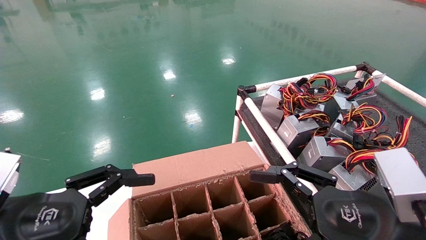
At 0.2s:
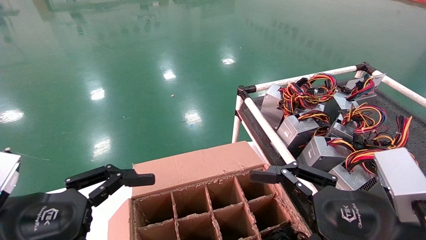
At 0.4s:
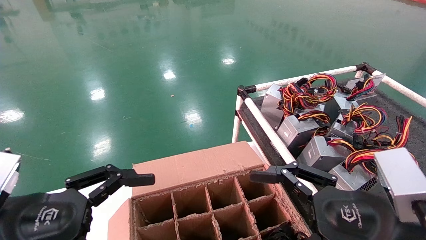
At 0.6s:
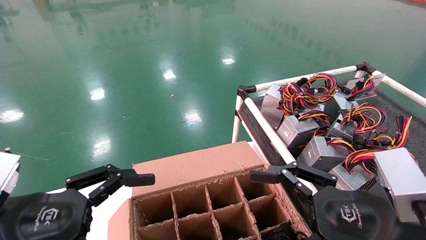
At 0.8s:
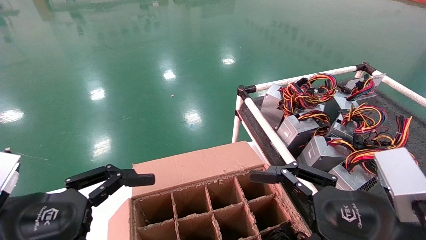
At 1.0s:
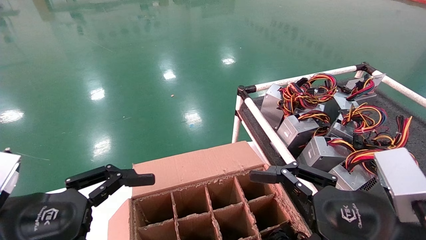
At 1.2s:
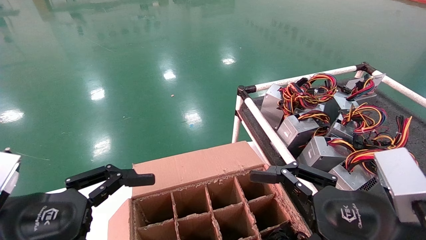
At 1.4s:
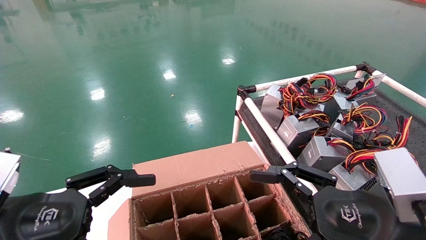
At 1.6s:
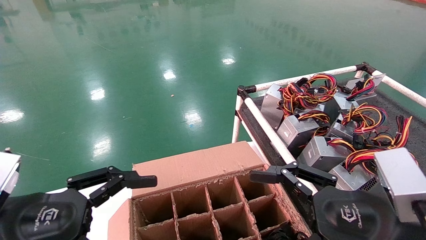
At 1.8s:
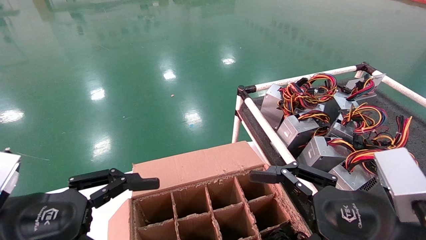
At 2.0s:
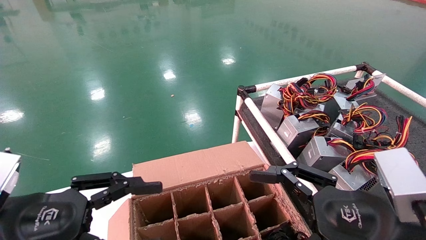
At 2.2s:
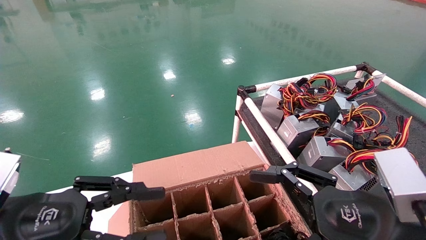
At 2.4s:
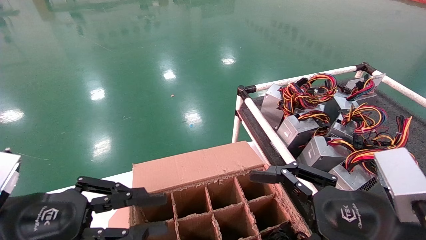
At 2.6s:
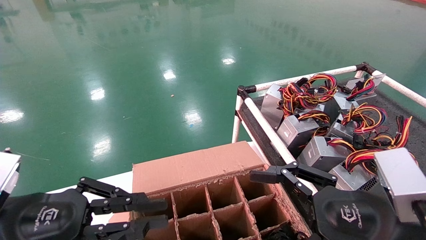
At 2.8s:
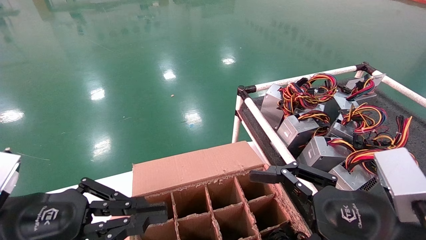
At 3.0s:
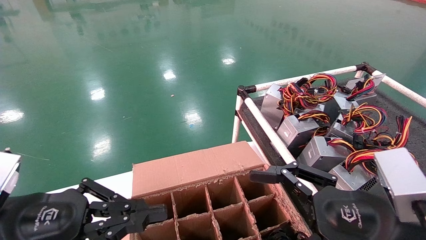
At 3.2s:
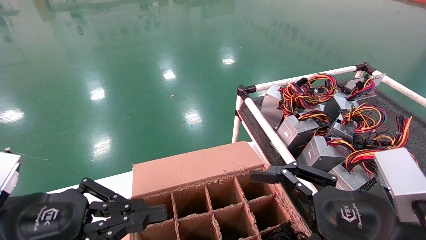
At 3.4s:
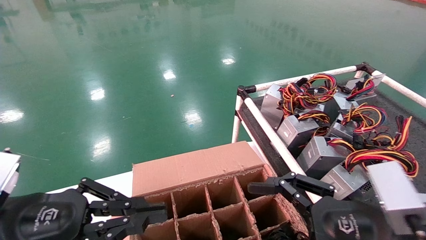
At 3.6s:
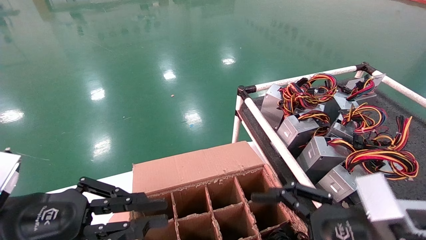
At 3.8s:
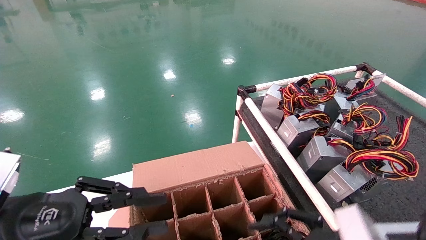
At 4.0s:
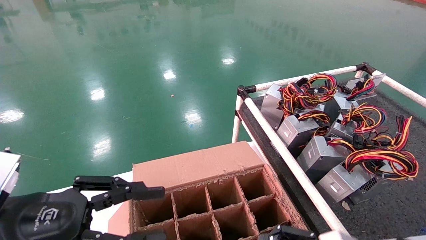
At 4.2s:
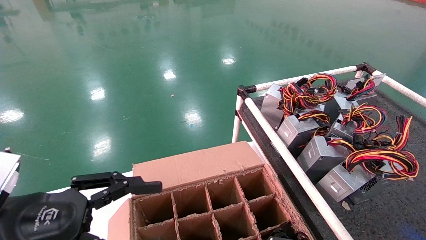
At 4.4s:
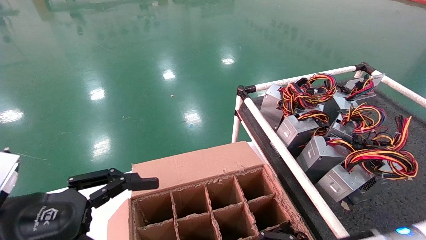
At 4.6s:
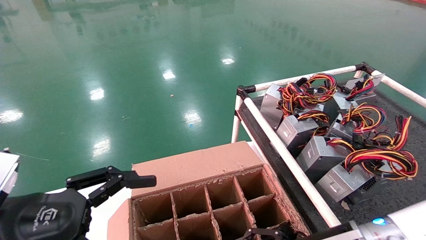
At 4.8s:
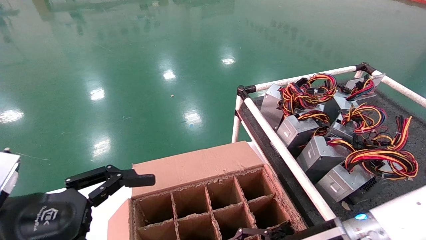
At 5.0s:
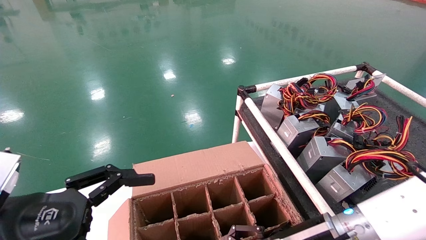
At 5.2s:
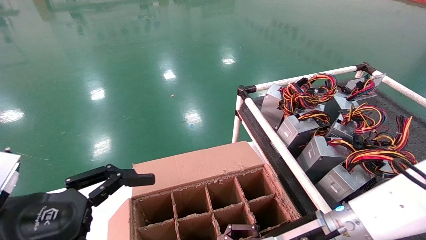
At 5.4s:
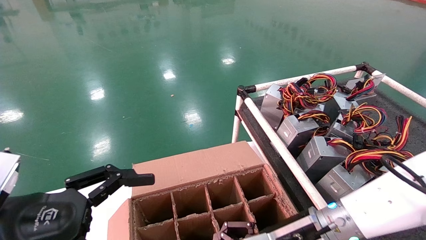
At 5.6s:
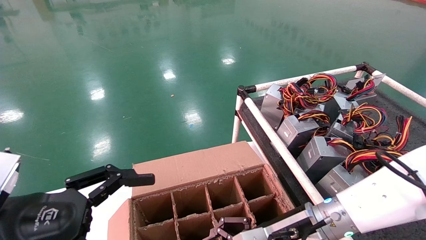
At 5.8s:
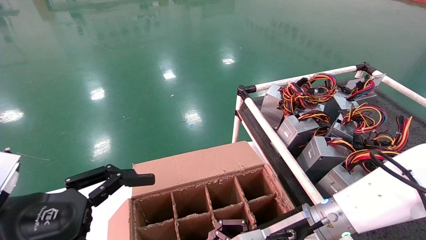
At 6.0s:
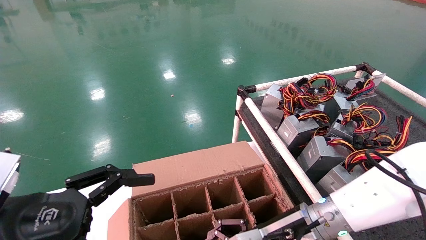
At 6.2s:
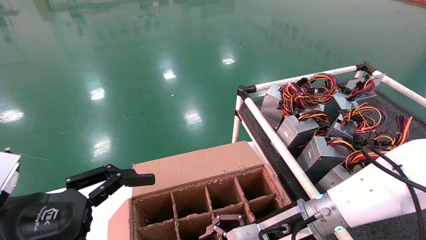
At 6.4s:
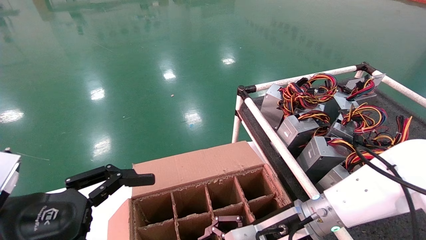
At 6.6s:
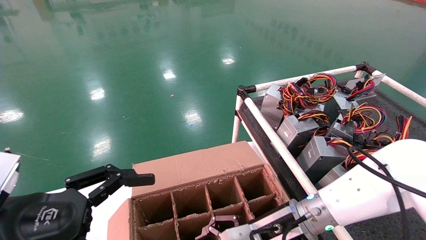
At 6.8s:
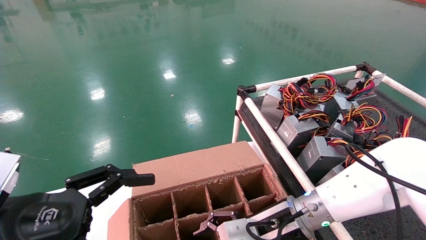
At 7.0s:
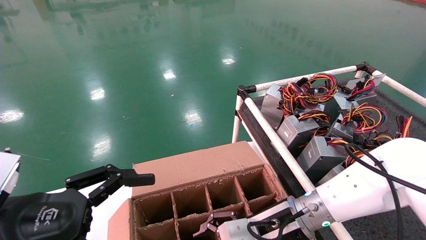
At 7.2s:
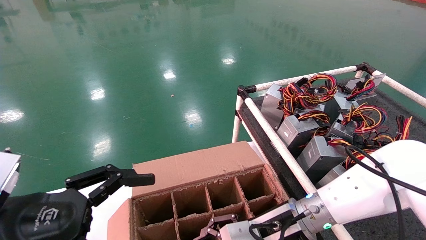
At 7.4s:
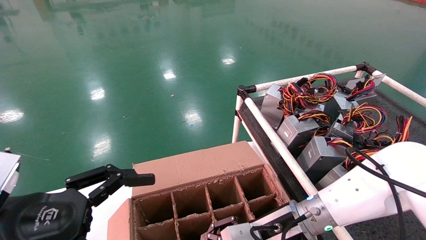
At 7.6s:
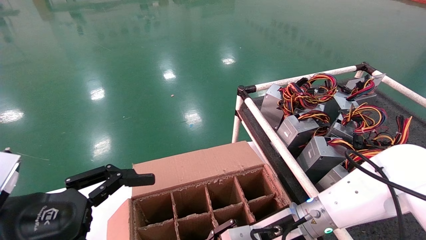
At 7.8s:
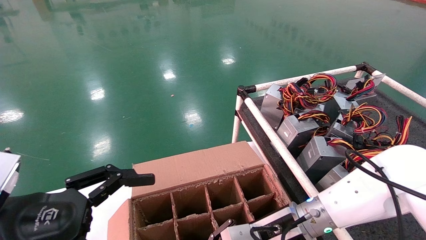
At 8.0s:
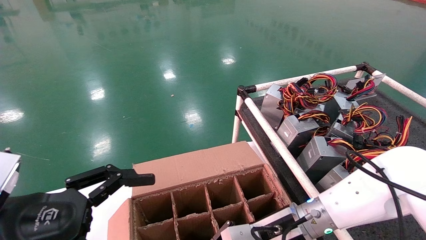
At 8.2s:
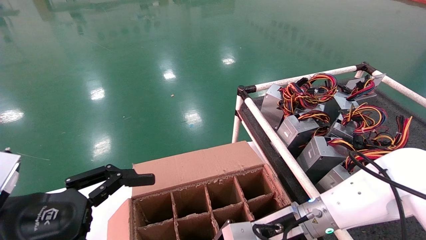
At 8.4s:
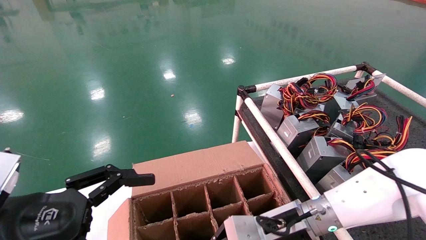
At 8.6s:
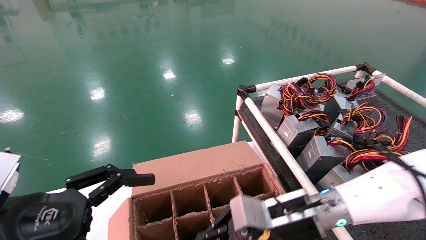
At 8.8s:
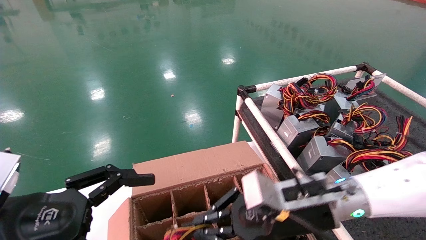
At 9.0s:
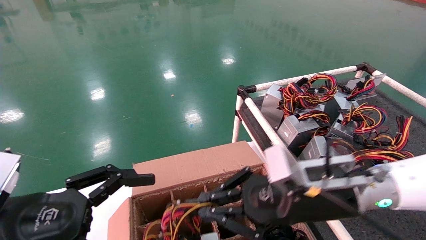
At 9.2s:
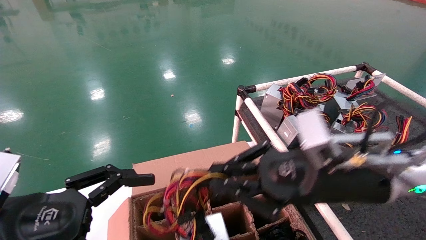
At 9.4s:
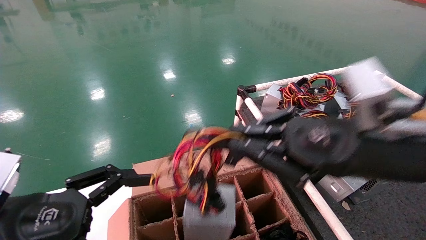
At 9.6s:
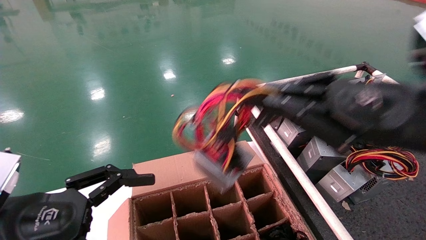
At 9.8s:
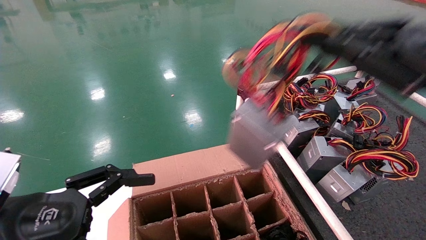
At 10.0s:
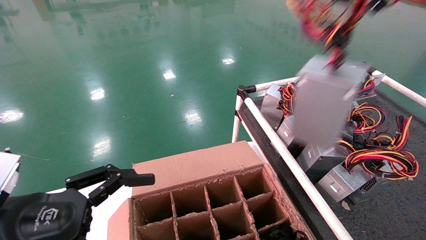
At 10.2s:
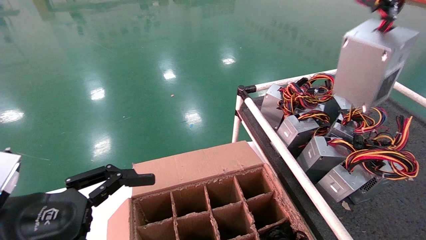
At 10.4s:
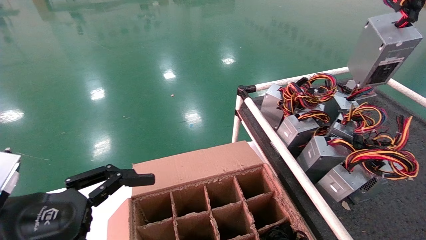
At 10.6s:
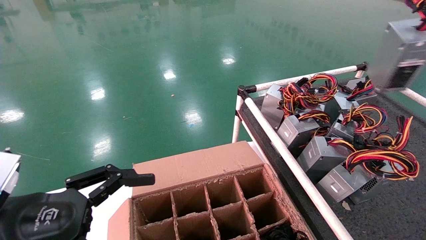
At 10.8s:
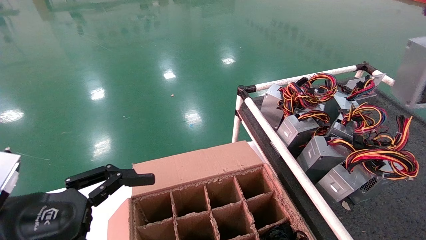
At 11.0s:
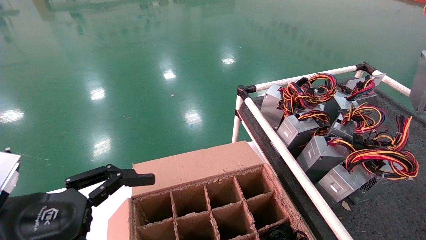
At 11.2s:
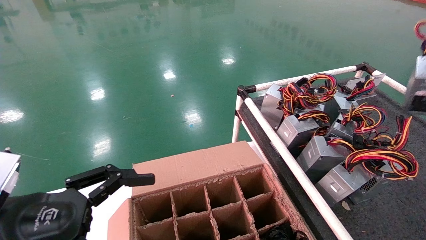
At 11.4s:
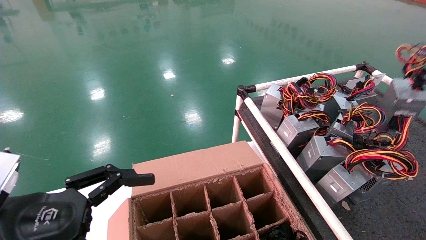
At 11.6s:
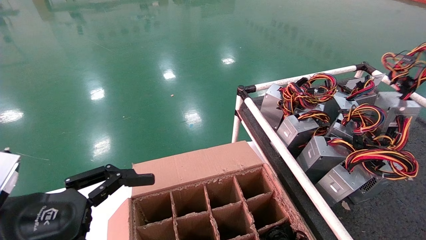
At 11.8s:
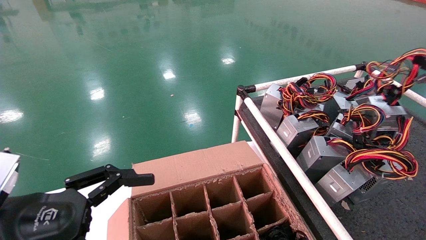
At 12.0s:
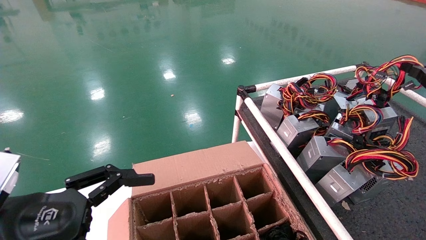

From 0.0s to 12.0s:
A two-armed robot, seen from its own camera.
Step, from 3.8s to 8.2s: Grab and lift the power supply from the large box.
From 0.0s to 1.6s: Neither gripper changes place.
From 1.6s to 3.0s: The left gripper closes.
From 3.0s to 4.4s: The right gripper moves downward and forward, some 10 cm, while the left gripper opens.
From 4.4s to 6.0s: The right gripper goes some 10 cm to the left and forward.
From 6.0s to 7.6s: The right gripper closes up.
From 7.6s to 9.0s: The right gripper travels upward and backward by about 10 cm, and closes its fingers.
From 9.0s to 10.4s: The right gripper travels to the right and upward by approximately 35 cm.
From 10.4s to 12.0s: The right gripper shifts approximately 15 cm downward and forward.

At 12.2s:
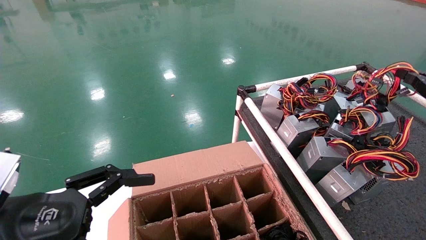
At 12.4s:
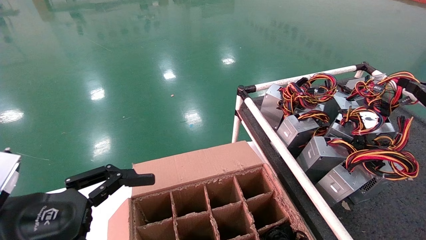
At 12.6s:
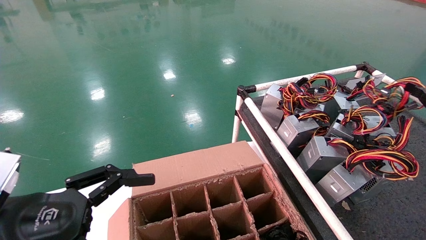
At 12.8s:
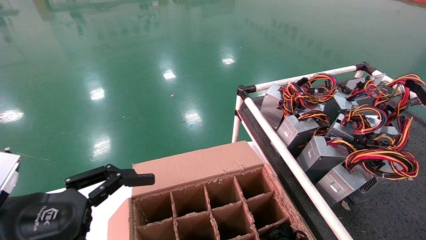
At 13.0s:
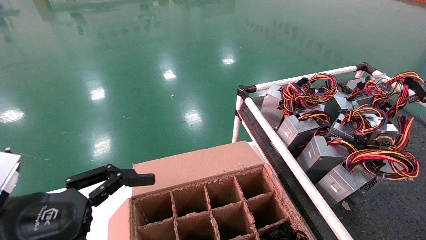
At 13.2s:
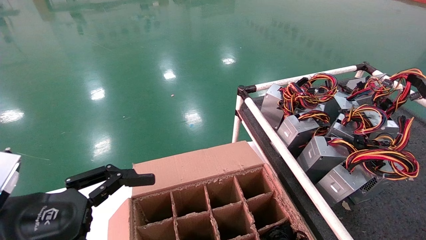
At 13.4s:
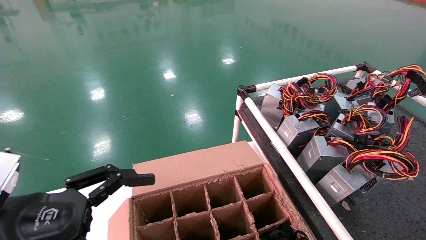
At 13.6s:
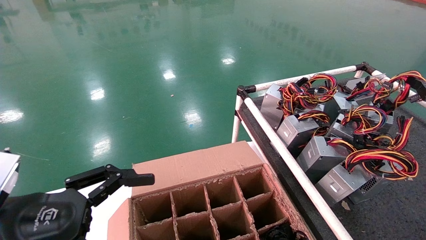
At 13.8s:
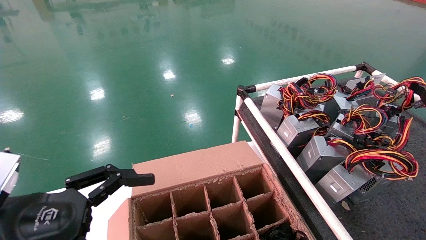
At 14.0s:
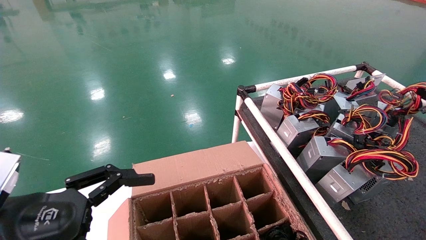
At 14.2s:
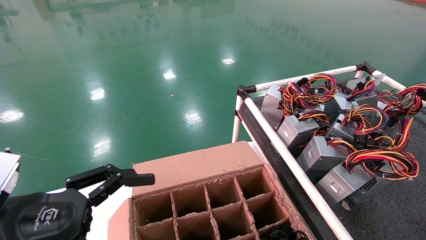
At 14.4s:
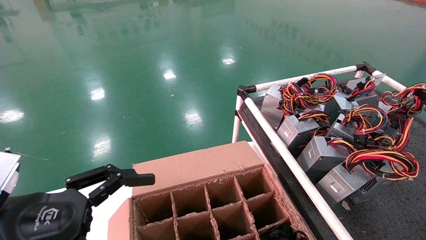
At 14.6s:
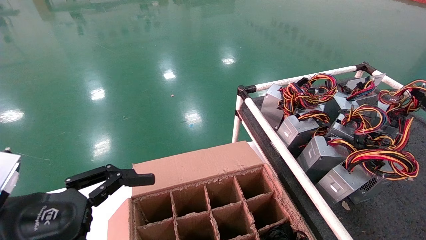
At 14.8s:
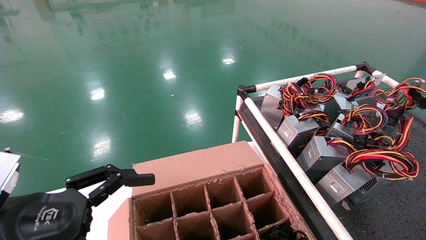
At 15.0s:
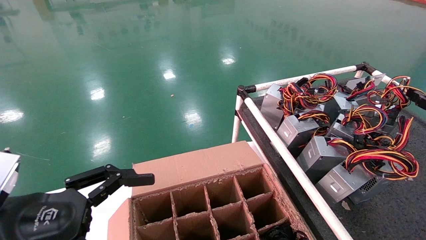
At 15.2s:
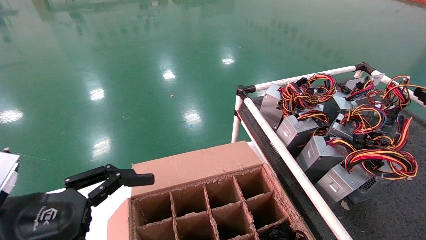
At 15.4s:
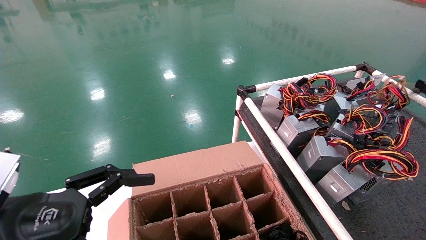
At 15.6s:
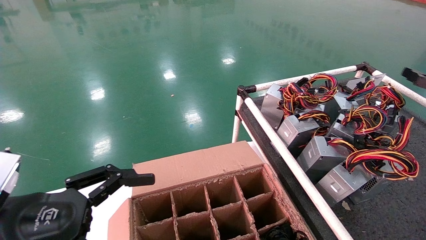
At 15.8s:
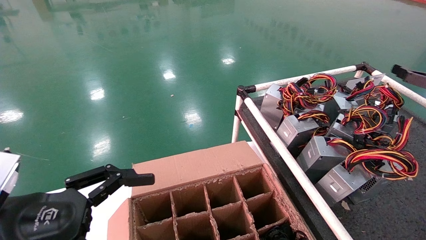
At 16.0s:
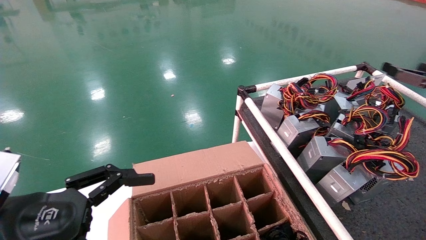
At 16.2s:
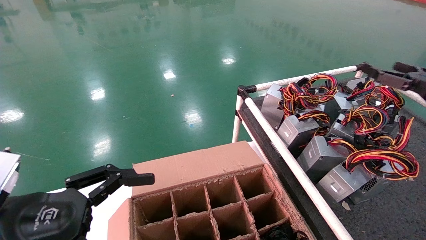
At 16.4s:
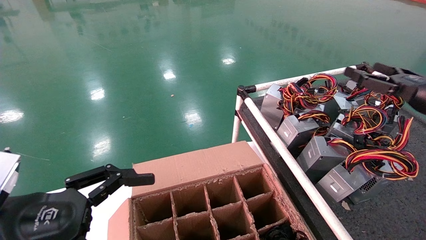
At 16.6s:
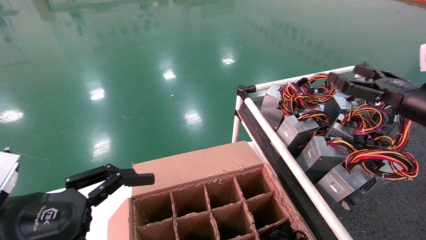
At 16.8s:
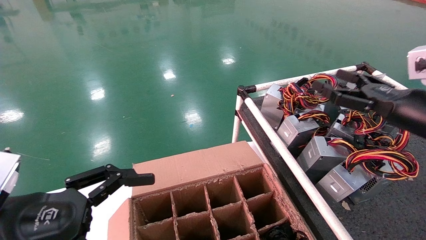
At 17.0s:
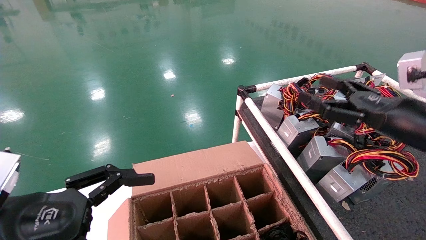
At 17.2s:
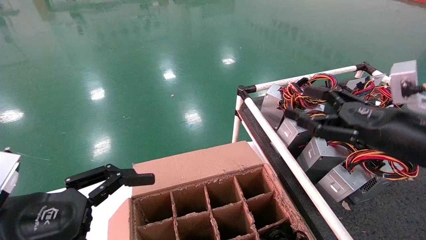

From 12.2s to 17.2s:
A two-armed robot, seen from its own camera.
Step, from 12.2s to 14.6s: Place the power supply on the operating table.
From 12.2s to 13.8s: The right gripper shifts by about 5 cm.
From 13.8s to 15.6s: The right gripper opens its fingers.
From 15.6s to 17.2s: The right gripper travels to the left by roughly 20 cm.
